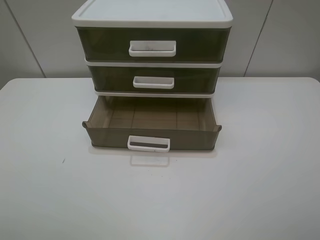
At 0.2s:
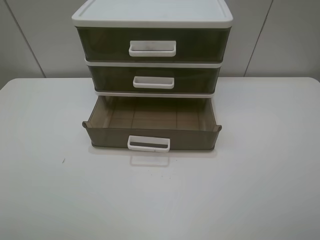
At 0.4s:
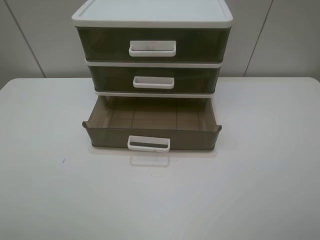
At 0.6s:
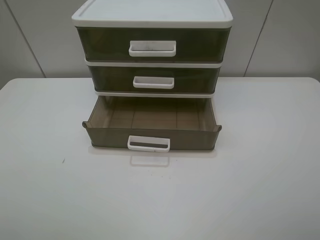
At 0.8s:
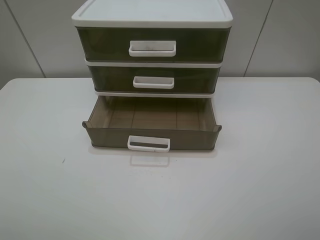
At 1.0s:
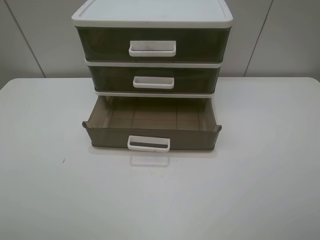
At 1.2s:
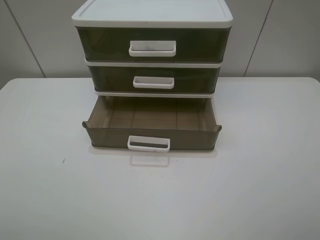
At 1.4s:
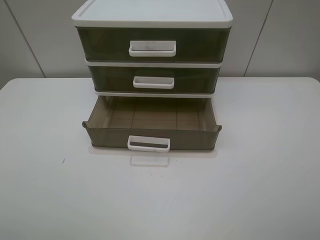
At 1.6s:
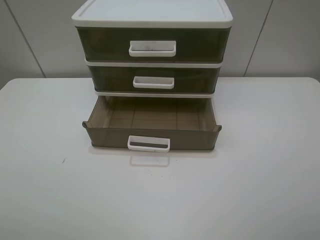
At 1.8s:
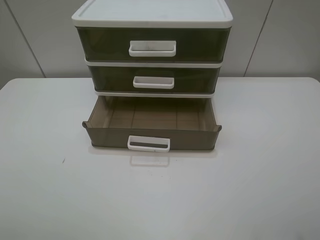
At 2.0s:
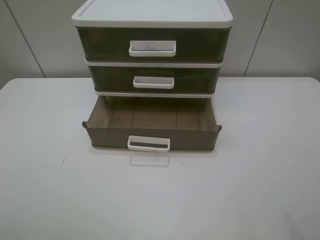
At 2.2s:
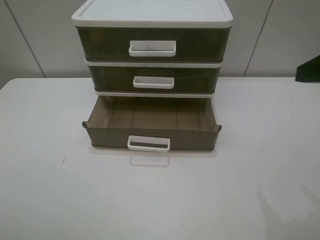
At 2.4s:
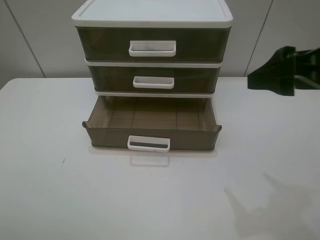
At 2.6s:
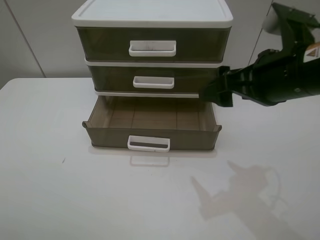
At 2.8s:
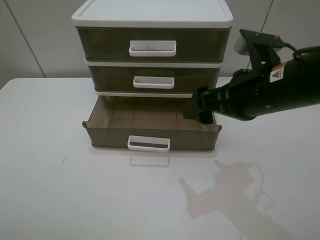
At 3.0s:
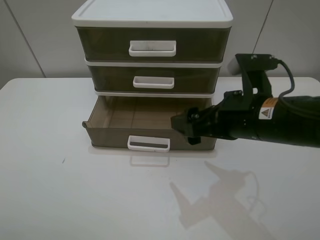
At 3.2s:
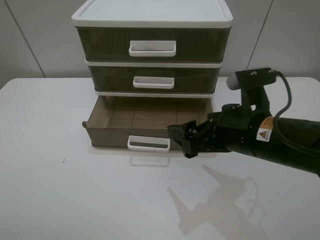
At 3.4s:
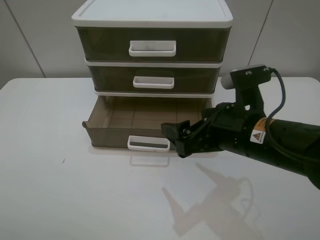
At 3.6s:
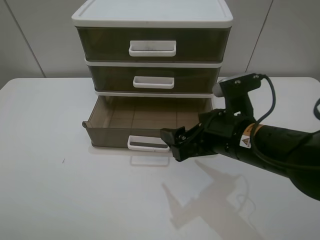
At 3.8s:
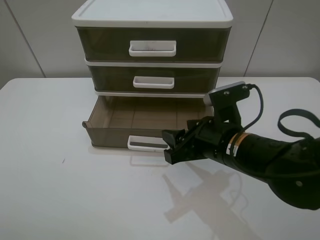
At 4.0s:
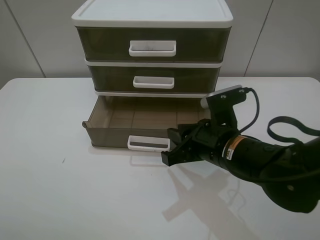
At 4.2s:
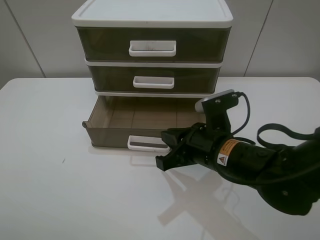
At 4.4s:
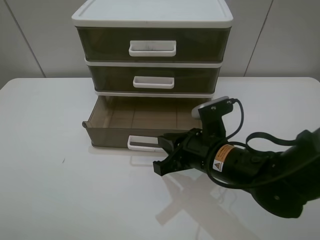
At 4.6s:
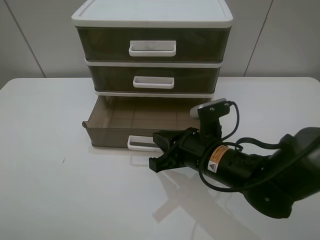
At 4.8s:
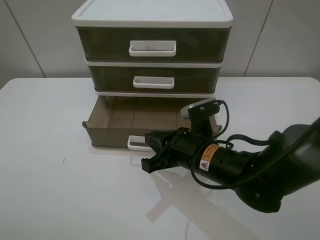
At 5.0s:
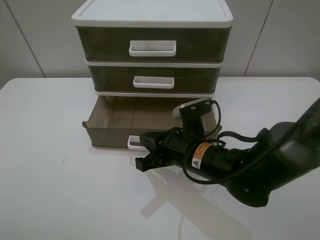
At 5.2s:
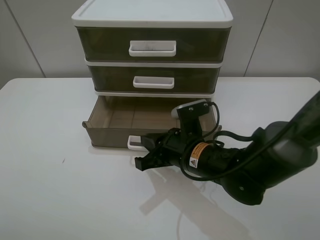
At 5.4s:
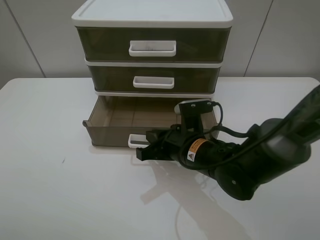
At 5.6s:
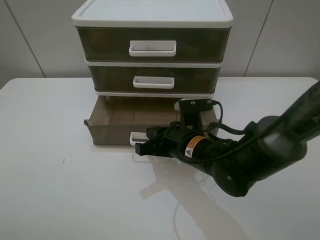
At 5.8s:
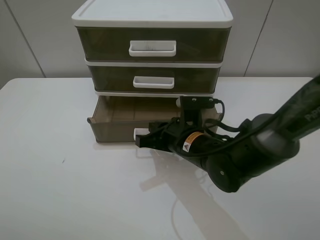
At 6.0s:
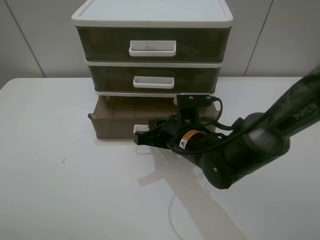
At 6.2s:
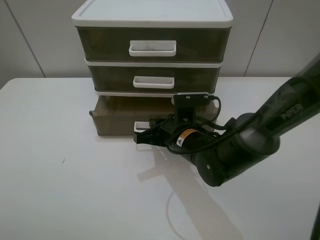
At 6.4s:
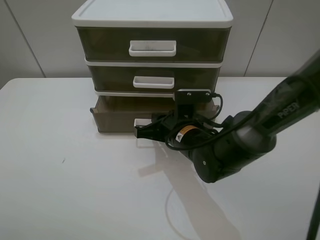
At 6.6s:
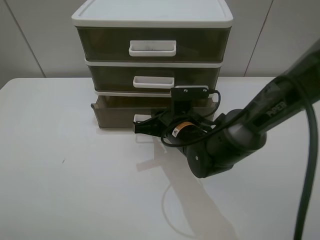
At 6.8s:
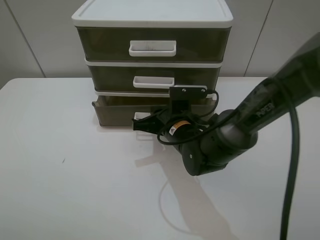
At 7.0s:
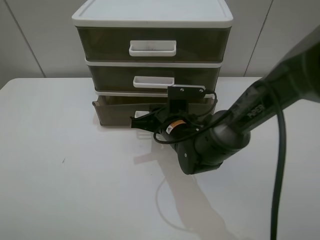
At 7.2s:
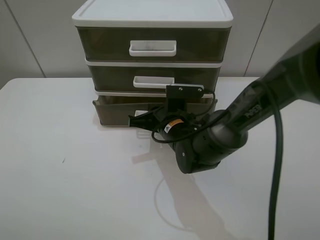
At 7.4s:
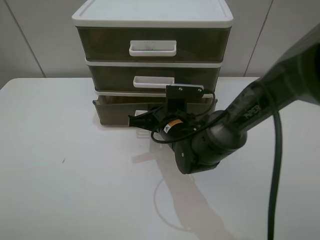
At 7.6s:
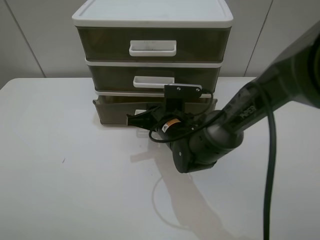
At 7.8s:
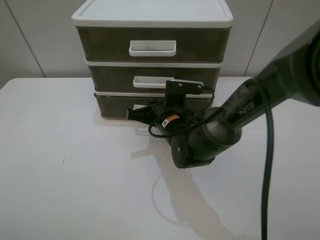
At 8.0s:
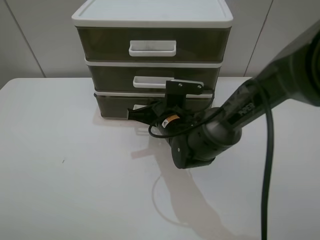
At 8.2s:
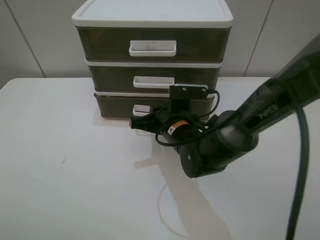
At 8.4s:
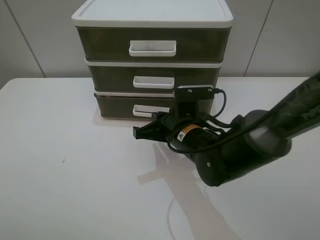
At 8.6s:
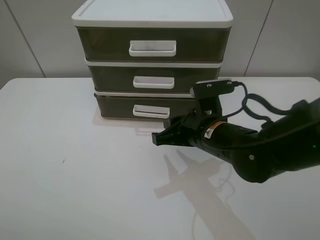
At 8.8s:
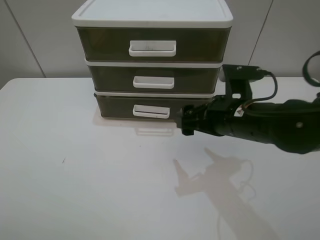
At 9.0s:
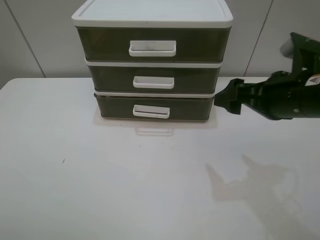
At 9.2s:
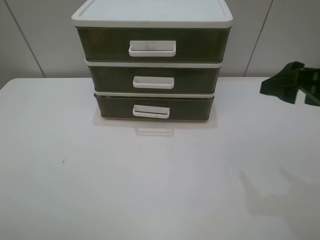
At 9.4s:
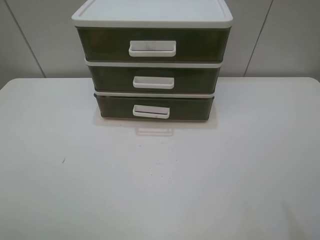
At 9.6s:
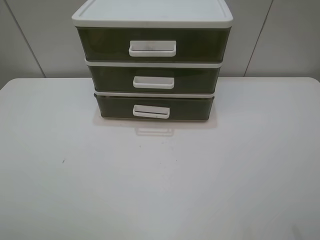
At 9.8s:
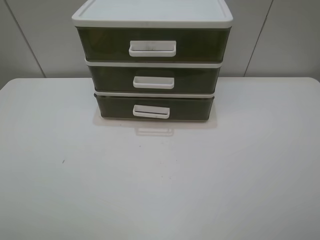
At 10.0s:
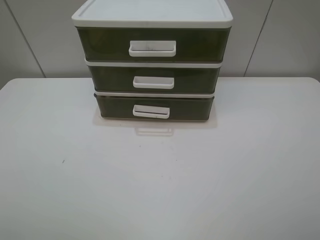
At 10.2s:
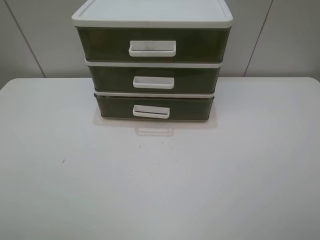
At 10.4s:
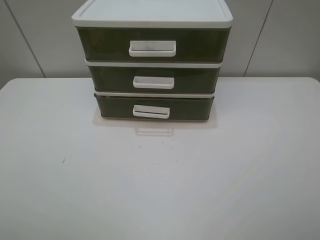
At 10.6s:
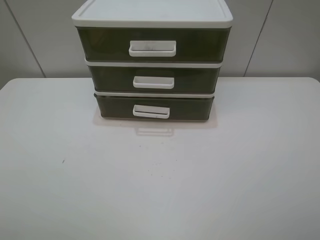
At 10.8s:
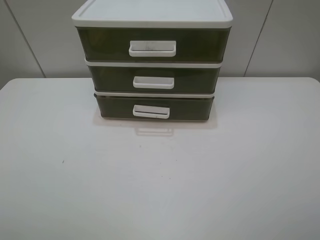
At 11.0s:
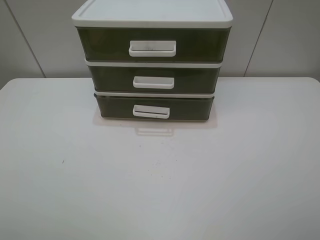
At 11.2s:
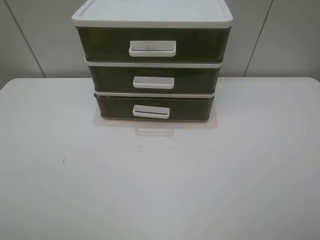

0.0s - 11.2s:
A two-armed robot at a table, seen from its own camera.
Task of the whole recording: close the bottom drawer.
Step, 0.0s - 5.4s: Use the right gripper to contact the bottom layer of the storage cabinet.
Step, 5.6s - 7.6s: Push the bottom drawer closed.
0.0s - 1.6s: Both grippers stay put.
1.6s - 3.2s: The right gripper moves forward, to the left and downward, some 25 cm.
3.2s - 4.8s: The right gripper heads downward and to the left, covering roughly 10 cm, and closes.
4.8s - 6.4s: The right gripper goes approximately 5 cm forward.
6.4s - 8.0s: The grippers stay close to where they were, moving slightly.
8.0s - 9.6s: The right gripper shifts about 40 cm to the right, upward and backward, and opens up.
